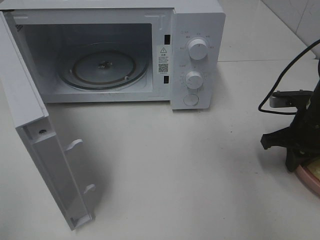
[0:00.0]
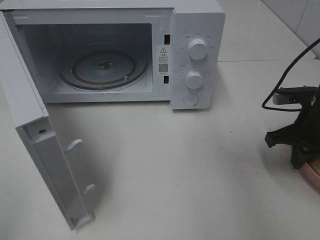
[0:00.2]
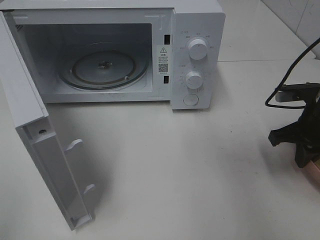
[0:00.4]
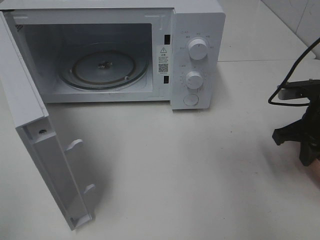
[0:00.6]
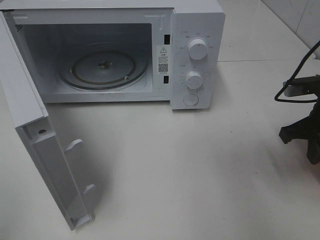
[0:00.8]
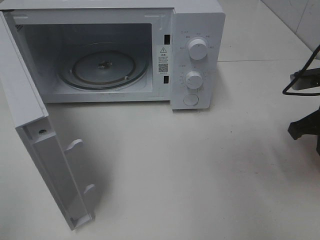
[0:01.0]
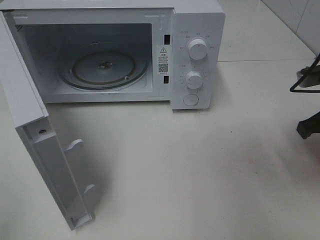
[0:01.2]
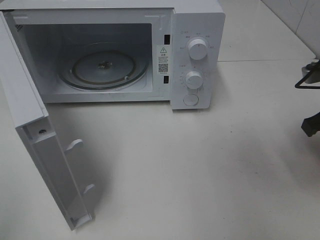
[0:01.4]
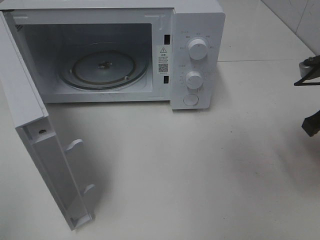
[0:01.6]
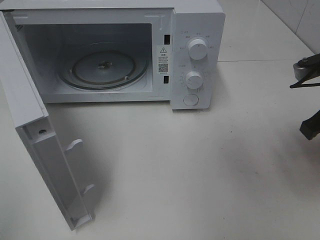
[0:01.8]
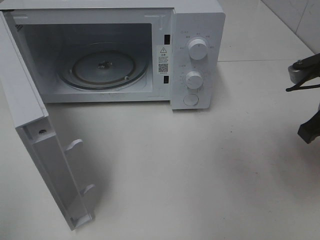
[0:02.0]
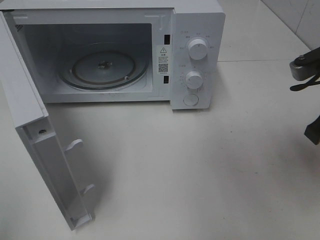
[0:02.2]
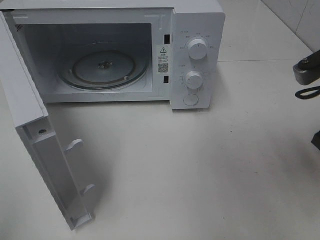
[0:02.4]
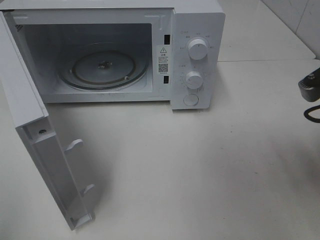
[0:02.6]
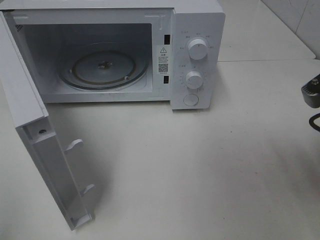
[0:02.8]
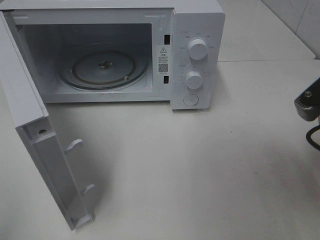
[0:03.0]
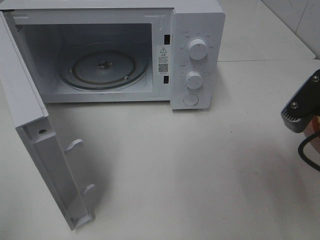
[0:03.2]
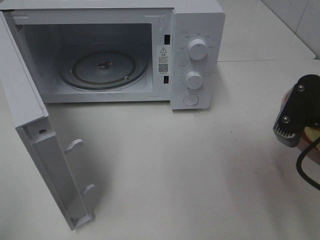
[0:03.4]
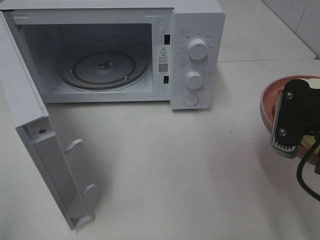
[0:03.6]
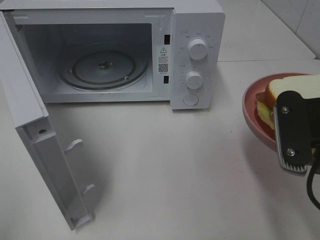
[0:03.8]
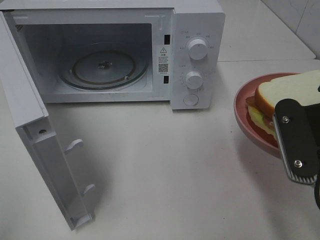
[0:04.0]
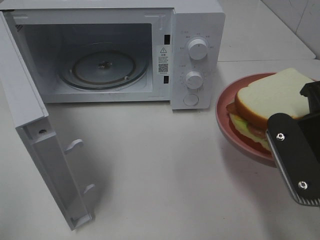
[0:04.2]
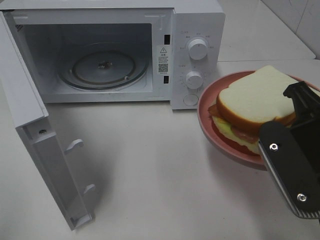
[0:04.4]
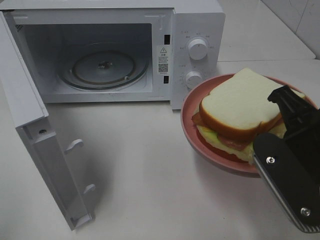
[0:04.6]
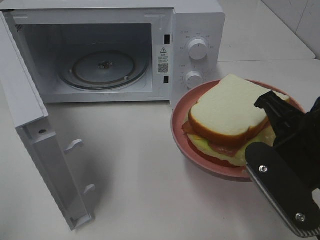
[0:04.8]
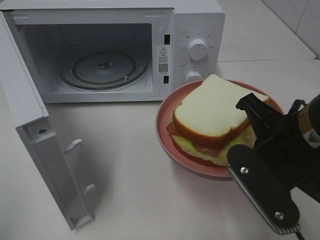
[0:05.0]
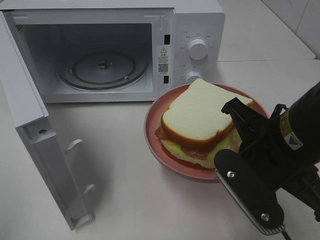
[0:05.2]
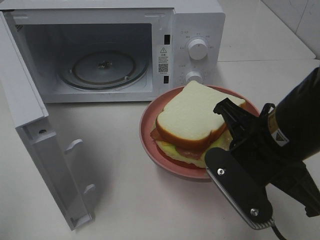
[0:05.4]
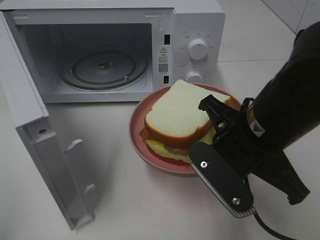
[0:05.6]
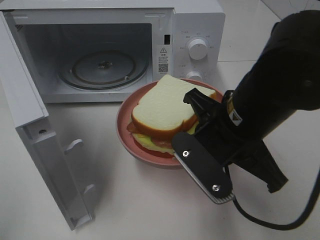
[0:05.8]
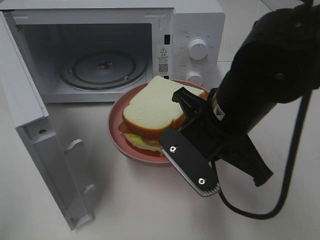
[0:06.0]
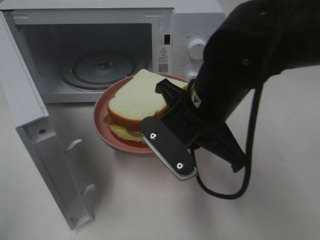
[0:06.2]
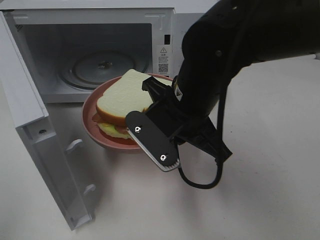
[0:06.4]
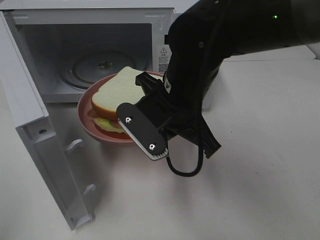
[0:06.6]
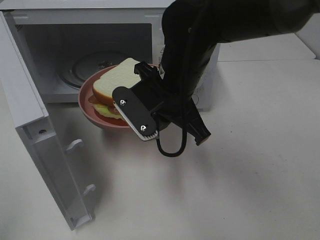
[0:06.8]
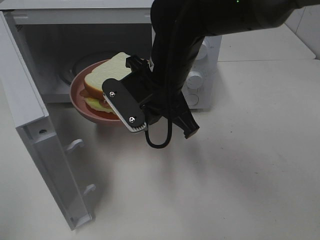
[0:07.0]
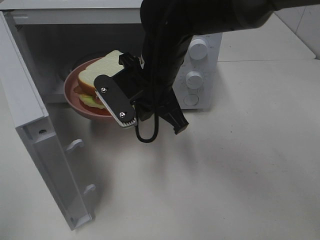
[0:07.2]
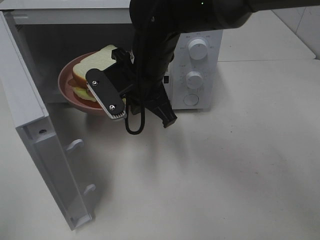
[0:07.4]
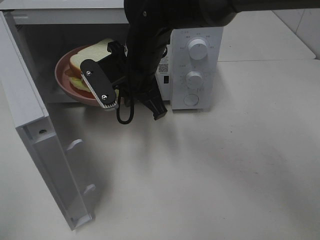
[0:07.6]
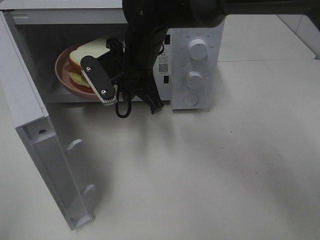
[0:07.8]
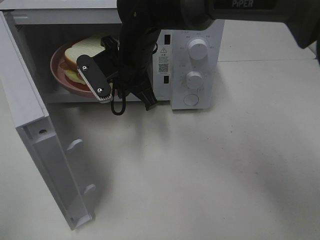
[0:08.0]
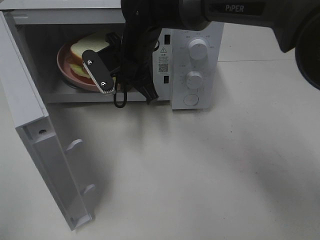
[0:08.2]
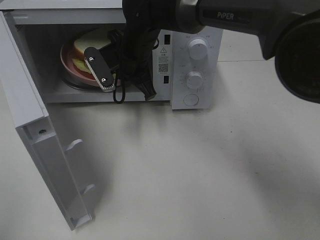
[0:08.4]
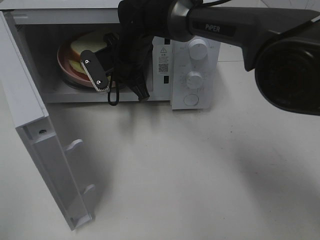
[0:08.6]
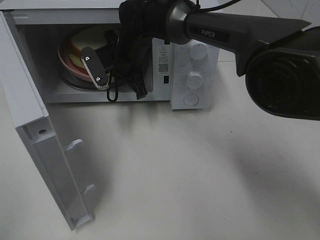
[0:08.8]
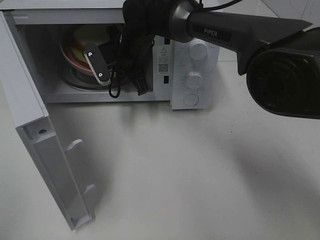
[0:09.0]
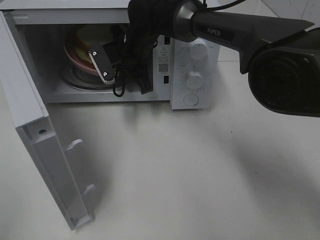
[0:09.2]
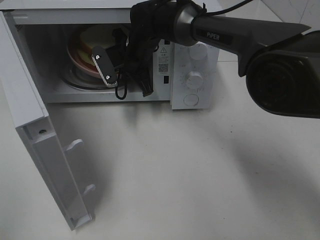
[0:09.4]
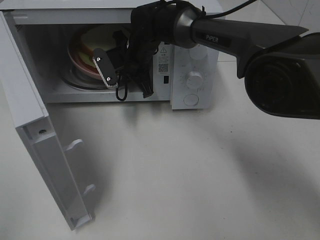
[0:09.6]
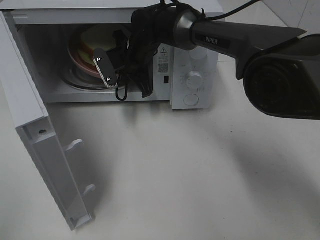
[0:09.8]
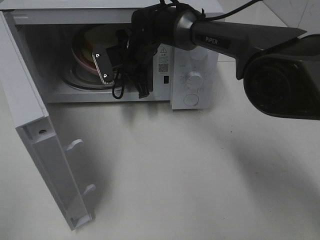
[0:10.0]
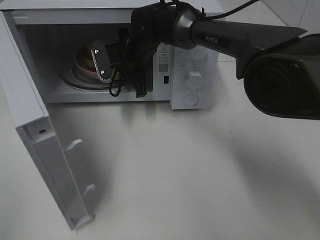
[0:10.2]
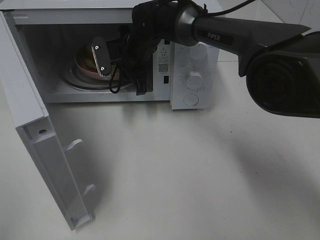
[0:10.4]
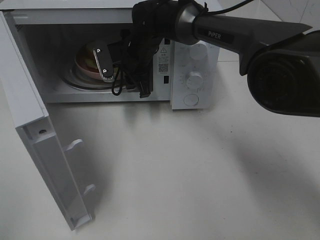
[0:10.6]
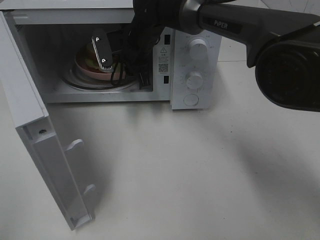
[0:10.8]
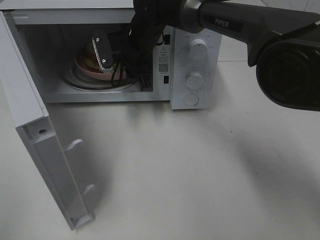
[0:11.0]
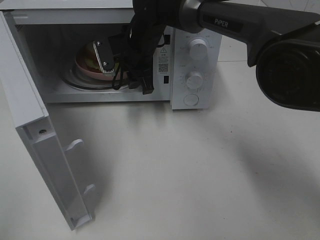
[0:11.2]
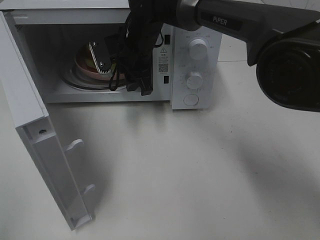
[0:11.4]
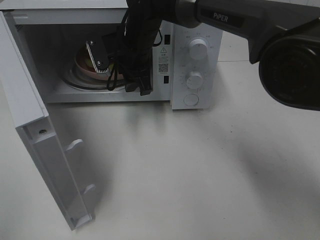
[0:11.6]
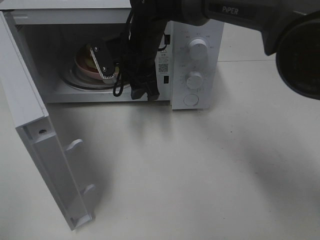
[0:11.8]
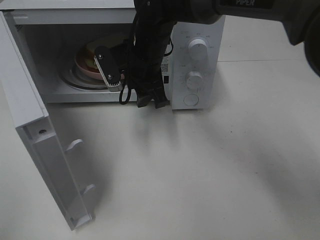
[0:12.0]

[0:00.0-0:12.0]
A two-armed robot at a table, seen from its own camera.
Task of the whole recording: Heat Sandwich.
Step, 0:00.2 to 0:11.2: Right hand: place the plate in the microwave.
0:00.0 to 0:01.6: The right gripper shifts approximately 10 cm upward.
0:01.6 to 0:03.0: The right gripper heads backward, covering about 10 cm.
0:03.0 to 0:04.4: The right gripper travels to the left by approximately 5 cm.
0:04.4 to 0:06.0: The right gripper goes about 10 cm to the left and forward.
0:06.0 to 0:07.6: The right gripper shifts roughly 15 cm forward and to the left.
0:07.6 to 0:09.0: The right gripper goes about 10 cm forward.
0:09.0 to 0:10.4: The right gripper opens up.
0:10.4 to 0:12.0: The right gripper travels backward by about 5 cm.

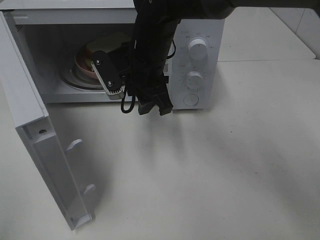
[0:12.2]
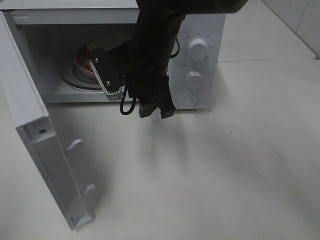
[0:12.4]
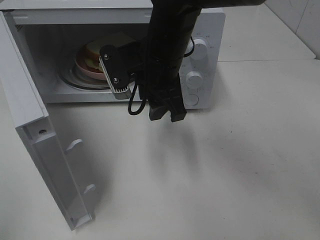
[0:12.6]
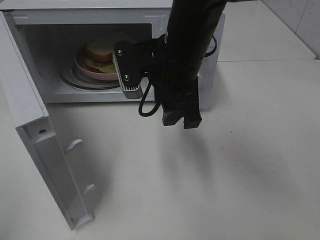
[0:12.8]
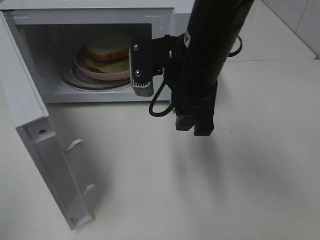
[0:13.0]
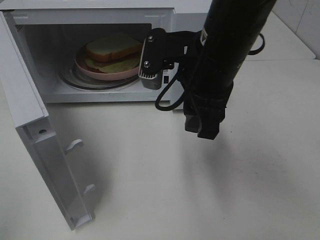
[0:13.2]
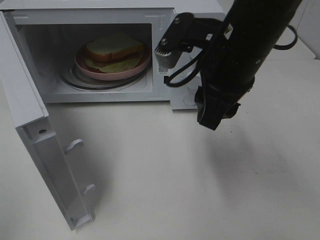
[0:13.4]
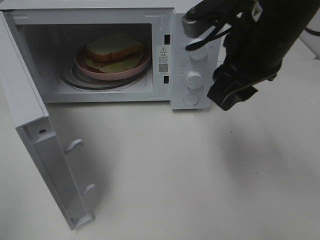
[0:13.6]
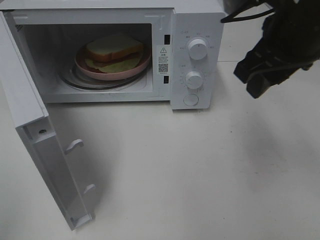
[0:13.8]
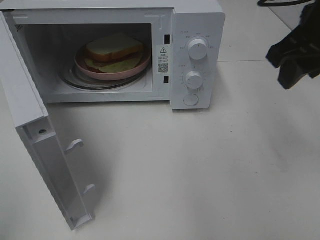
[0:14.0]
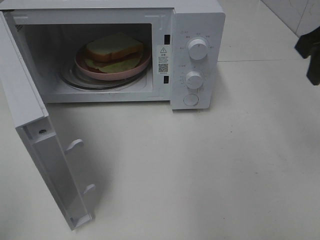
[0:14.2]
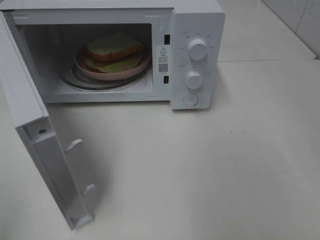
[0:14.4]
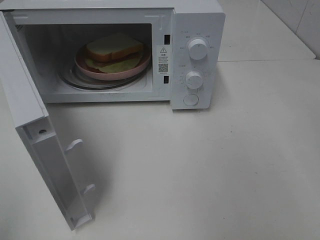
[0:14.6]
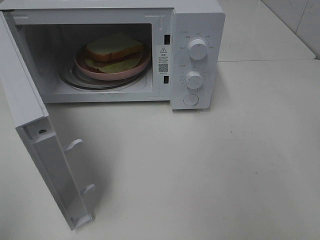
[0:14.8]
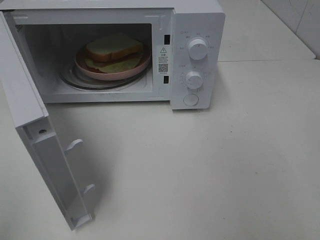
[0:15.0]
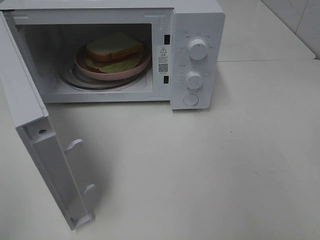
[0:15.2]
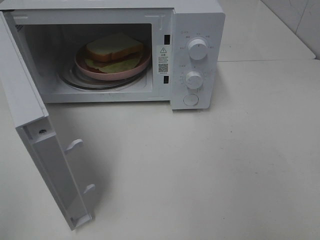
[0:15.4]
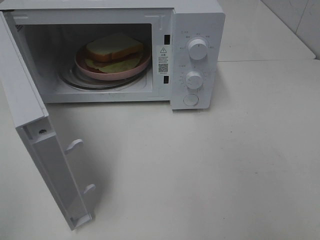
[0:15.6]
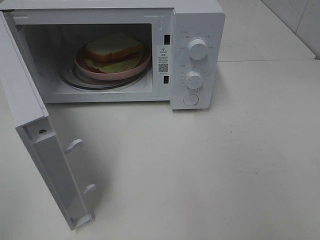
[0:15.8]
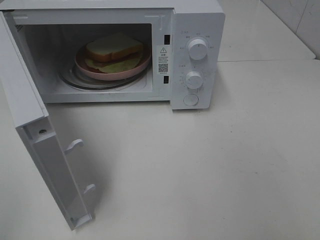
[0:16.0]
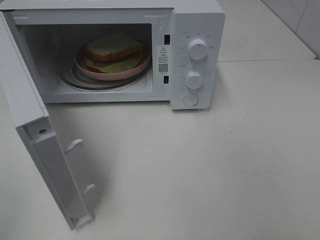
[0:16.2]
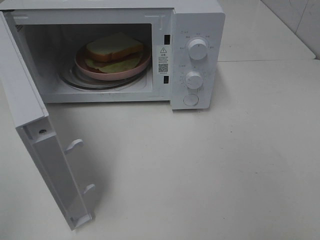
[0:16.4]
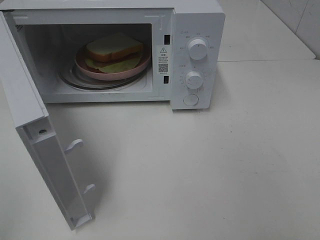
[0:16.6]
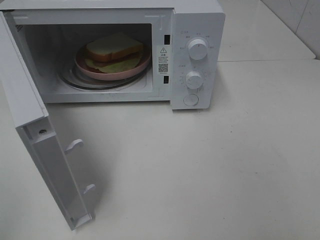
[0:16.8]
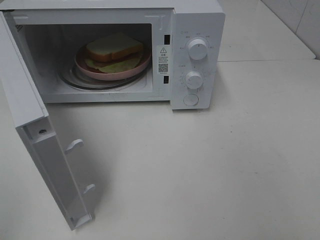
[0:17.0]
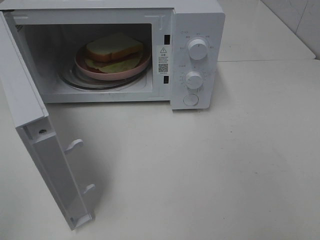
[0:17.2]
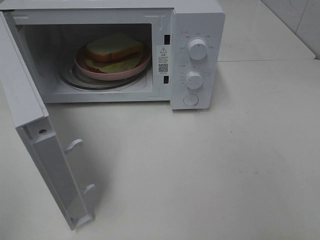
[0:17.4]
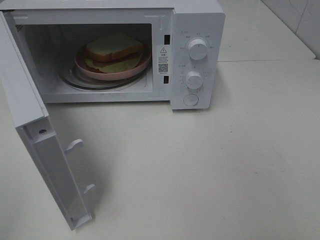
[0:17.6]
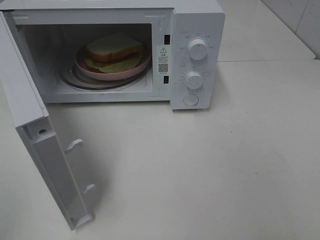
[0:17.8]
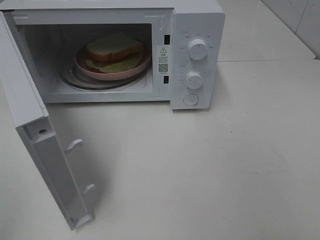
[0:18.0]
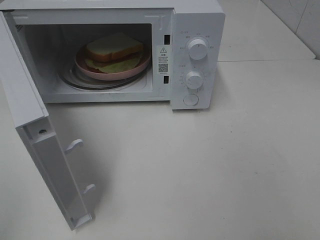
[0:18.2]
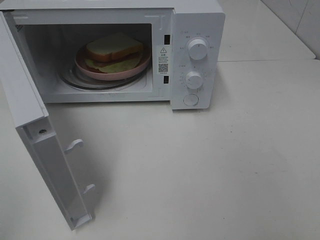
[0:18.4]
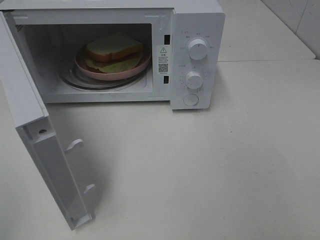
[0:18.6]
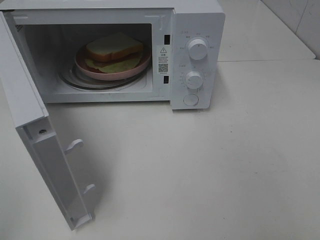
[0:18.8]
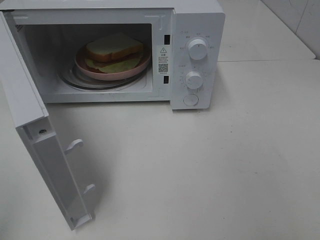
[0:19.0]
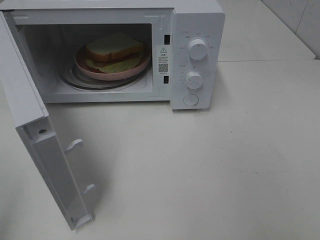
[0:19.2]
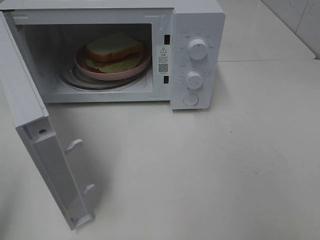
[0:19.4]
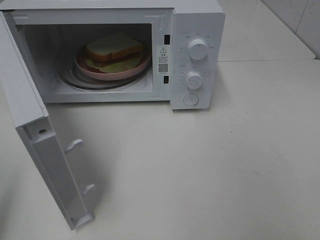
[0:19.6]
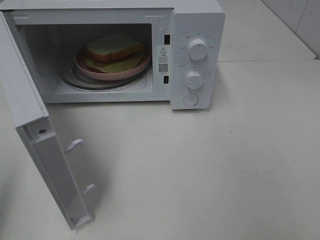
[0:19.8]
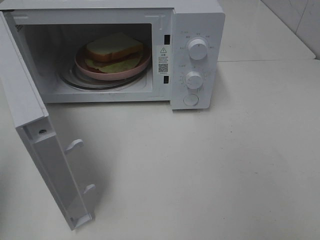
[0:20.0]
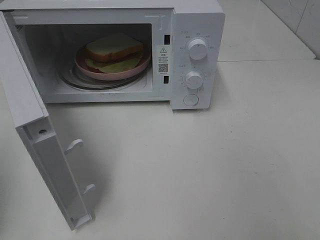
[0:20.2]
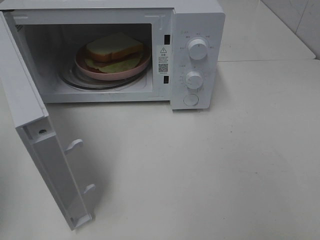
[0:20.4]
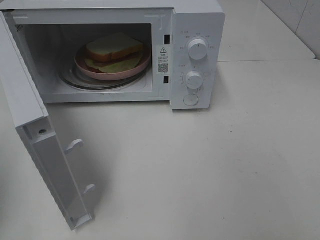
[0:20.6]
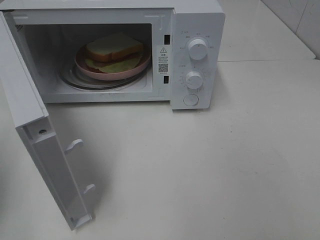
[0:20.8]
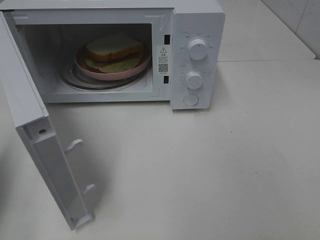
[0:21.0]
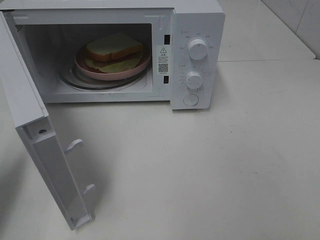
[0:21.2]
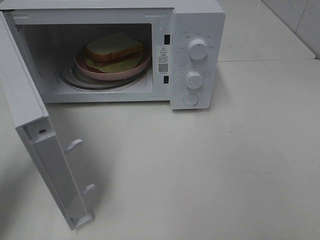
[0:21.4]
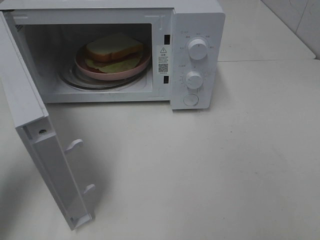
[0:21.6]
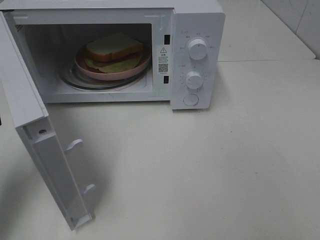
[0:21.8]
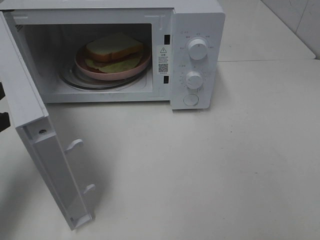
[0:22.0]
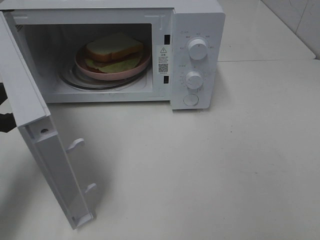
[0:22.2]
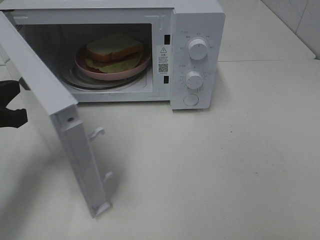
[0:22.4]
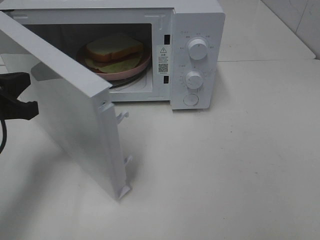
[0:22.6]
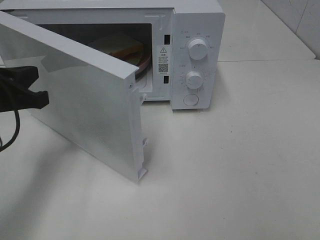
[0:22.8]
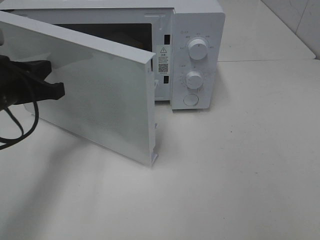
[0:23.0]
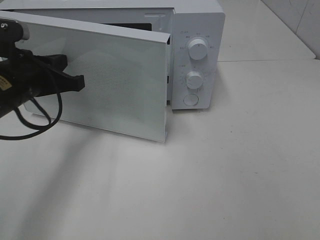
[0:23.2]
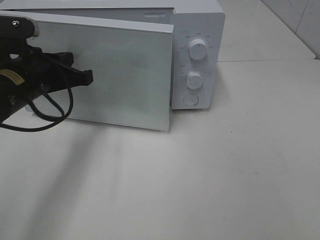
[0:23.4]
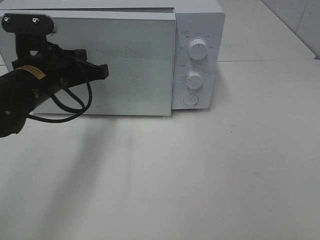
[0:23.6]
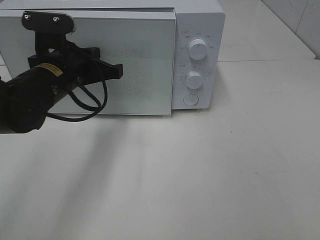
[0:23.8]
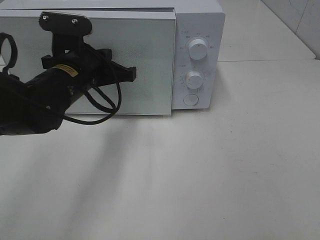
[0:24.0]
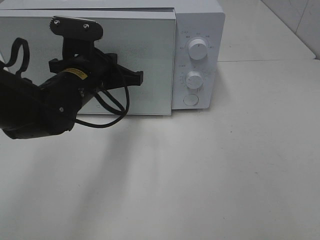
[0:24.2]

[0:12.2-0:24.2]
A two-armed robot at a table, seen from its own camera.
Task of the whole recording: Heat Sandwich.
0:12.2 to 0:13.8: The right gripper shifts approximately 20 cm to the right, upward and backward.
0:13.8 to 0:15.2: The right gripper is displaced backward and to the right by roughly 20 cm.
0:16.6 to 0:18.2: The two grippers keep their place.
0:19.8 to 0:21.2: The left gripper is displaced forward and downward by some 10 cm, and closes its fingers.
0:21.2 to 0:22.6: The left gripper heads to the right, covering roughly 5 cm.
0:22.6 to 0:24.2: The left gripper moves to the right and forward, some 15 cm.
